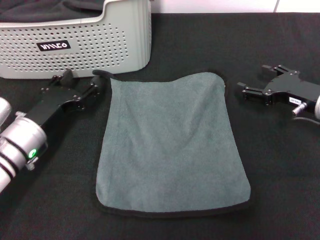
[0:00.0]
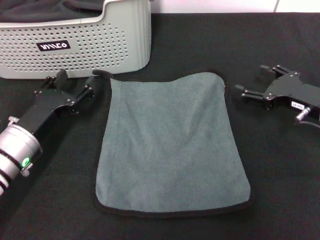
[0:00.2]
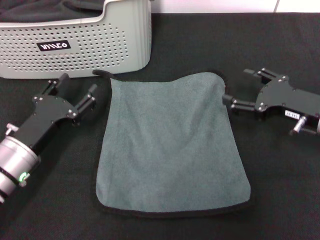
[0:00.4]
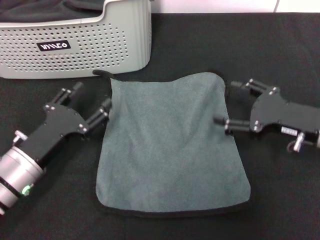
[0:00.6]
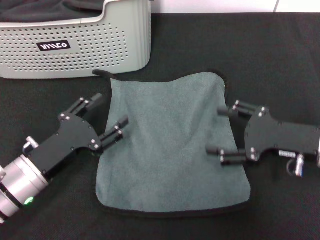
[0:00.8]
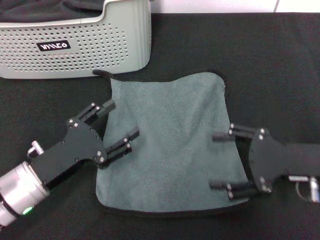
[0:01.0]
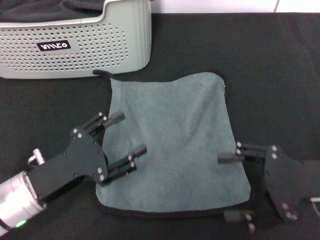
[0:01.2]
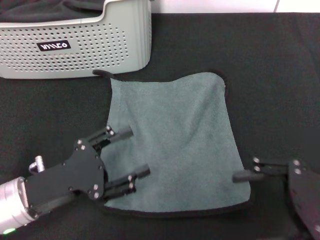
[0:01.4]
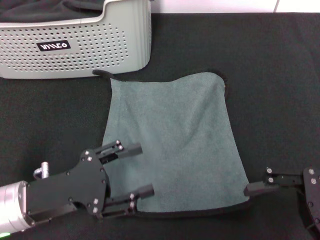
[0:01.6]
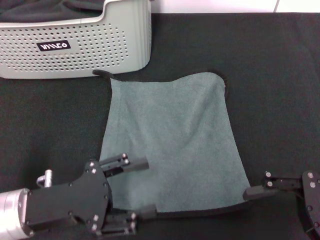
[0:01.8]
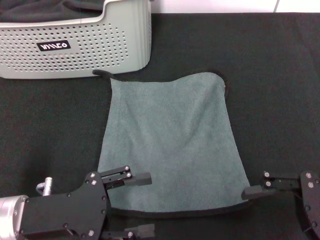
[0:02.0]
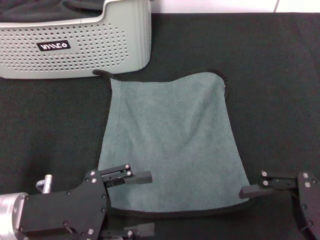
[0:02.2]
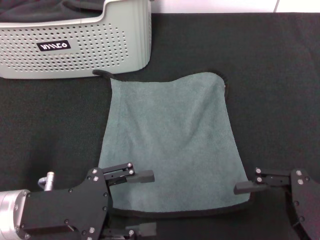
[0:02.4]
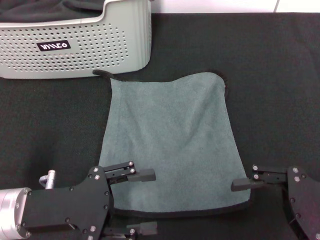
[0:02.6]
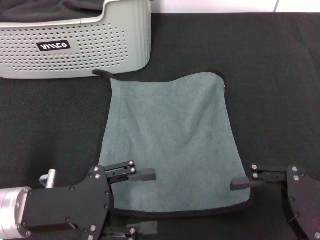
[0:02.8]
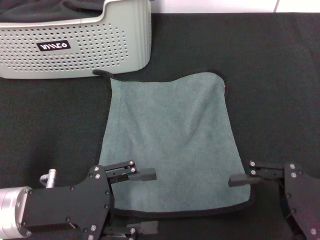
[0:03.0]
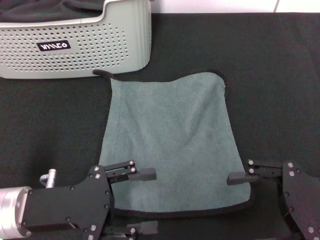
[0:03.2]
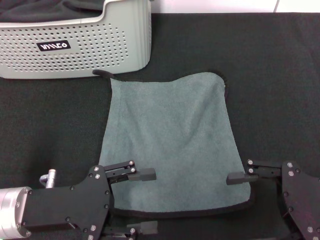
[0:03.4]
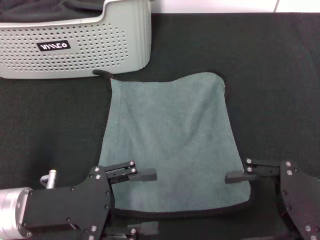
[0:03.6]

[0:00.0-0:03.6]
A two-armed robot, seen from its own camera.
Task of the whole recording: pick up the towel from the storage box and lay it flat on the black tablecloth.
0:00.0 to 0:01.8: The right gripper is displaced backward and upward by about 15 cm; the left gripper moves backward, roughly 10 cm.
0:01.8 to 0:03.6: The grippers make only small movements.

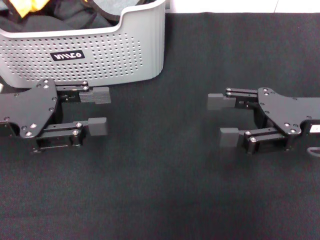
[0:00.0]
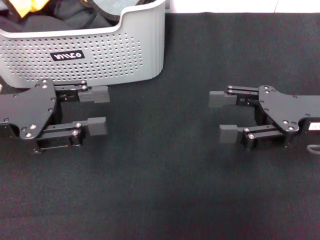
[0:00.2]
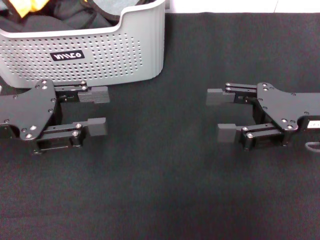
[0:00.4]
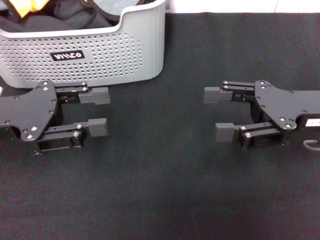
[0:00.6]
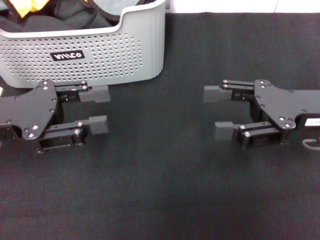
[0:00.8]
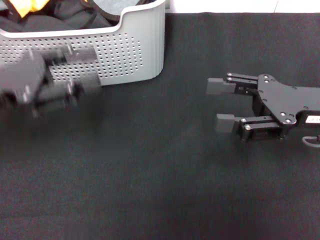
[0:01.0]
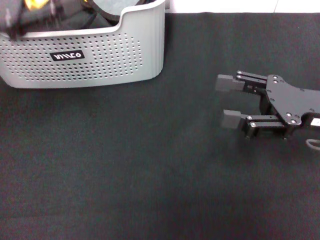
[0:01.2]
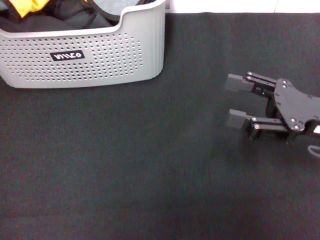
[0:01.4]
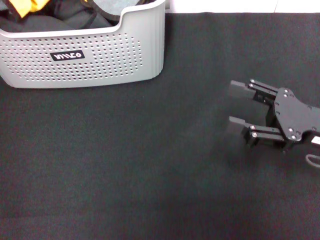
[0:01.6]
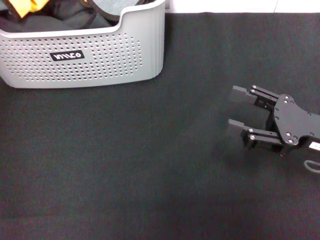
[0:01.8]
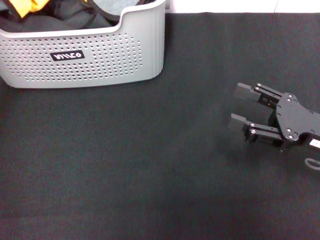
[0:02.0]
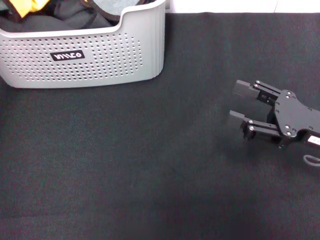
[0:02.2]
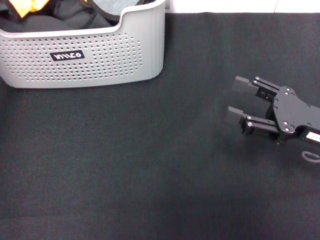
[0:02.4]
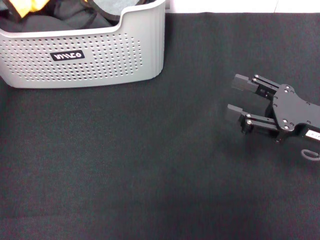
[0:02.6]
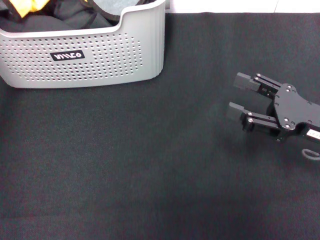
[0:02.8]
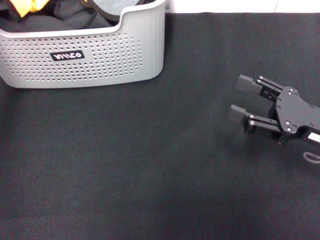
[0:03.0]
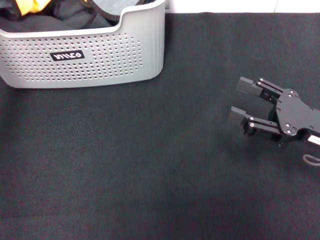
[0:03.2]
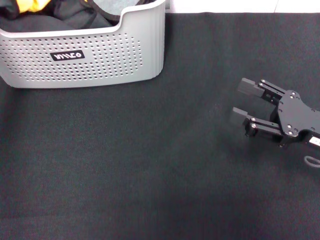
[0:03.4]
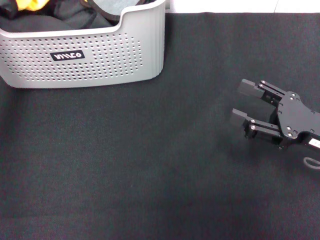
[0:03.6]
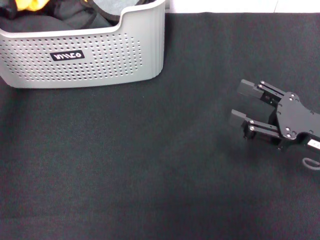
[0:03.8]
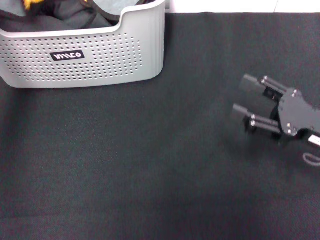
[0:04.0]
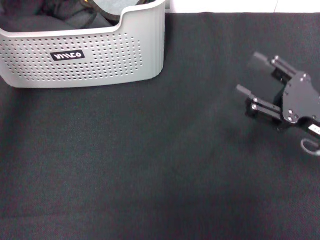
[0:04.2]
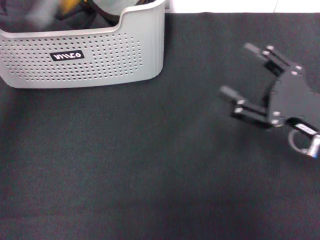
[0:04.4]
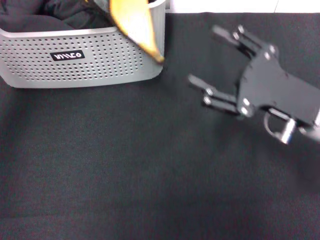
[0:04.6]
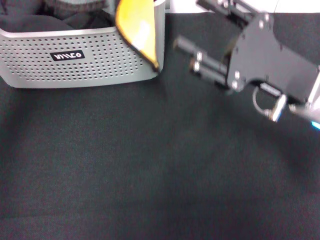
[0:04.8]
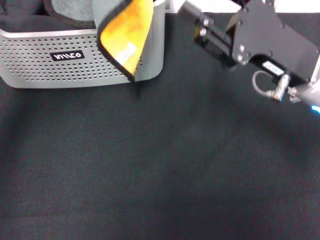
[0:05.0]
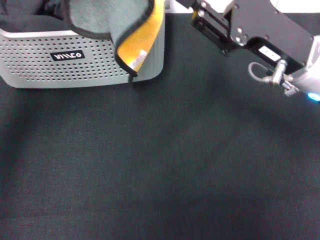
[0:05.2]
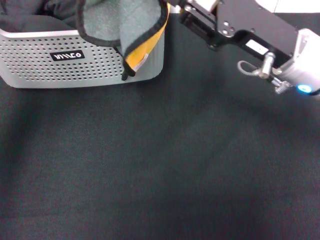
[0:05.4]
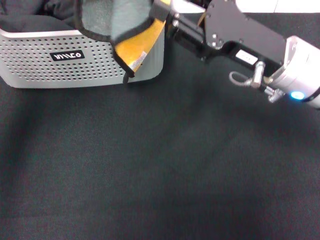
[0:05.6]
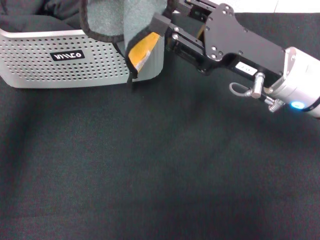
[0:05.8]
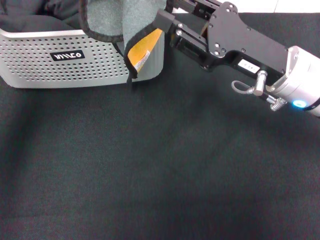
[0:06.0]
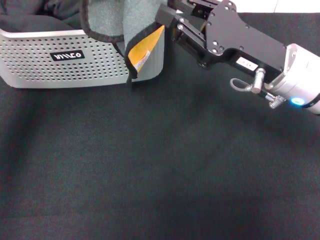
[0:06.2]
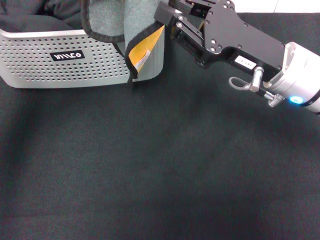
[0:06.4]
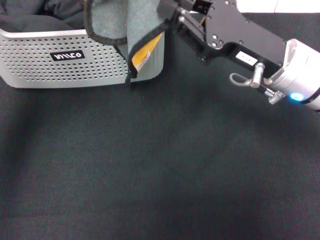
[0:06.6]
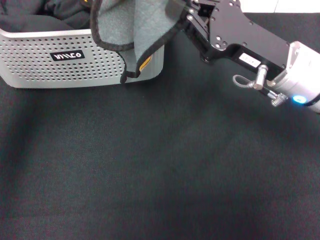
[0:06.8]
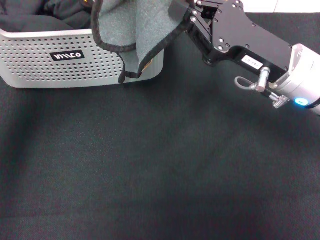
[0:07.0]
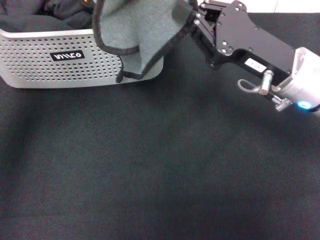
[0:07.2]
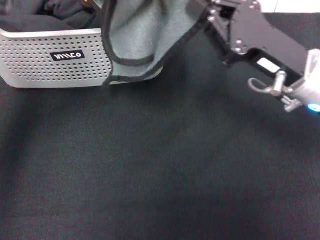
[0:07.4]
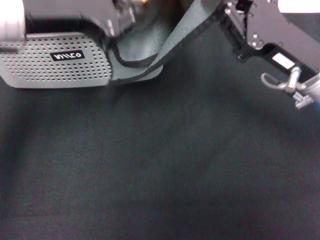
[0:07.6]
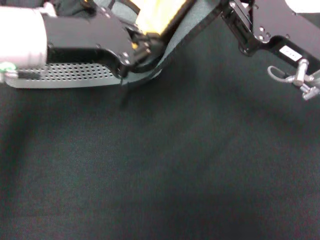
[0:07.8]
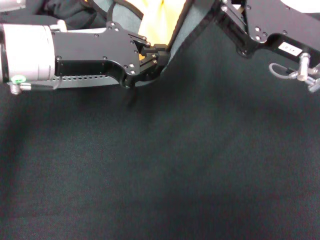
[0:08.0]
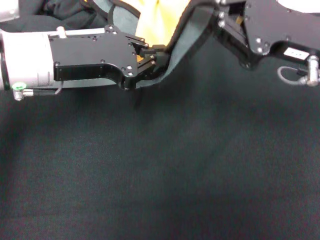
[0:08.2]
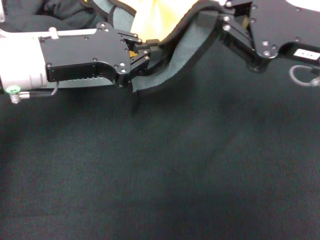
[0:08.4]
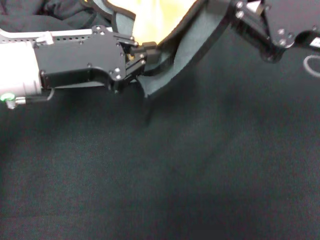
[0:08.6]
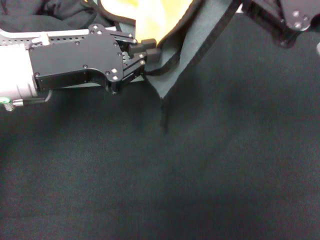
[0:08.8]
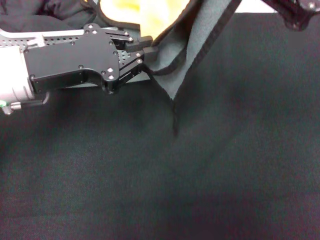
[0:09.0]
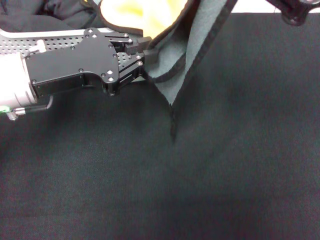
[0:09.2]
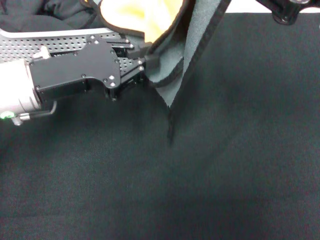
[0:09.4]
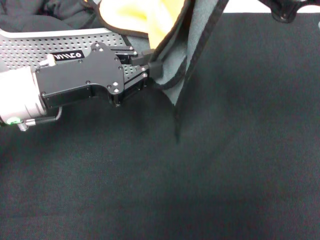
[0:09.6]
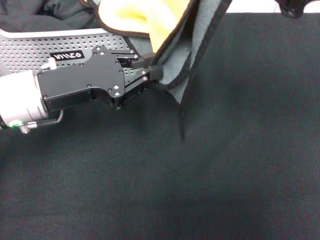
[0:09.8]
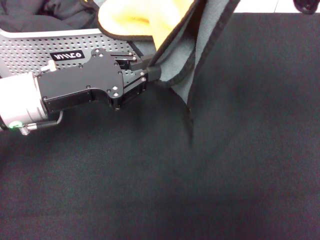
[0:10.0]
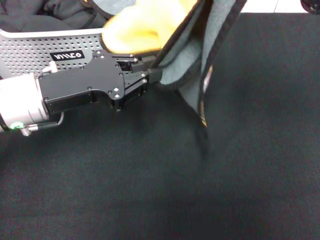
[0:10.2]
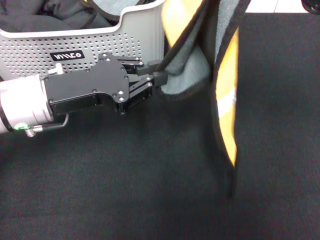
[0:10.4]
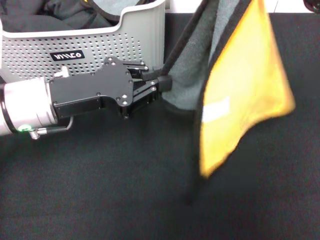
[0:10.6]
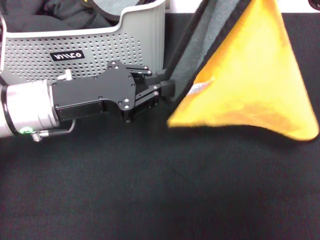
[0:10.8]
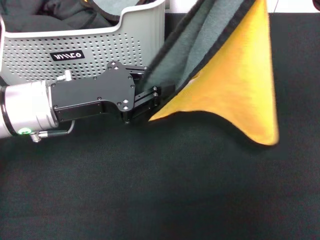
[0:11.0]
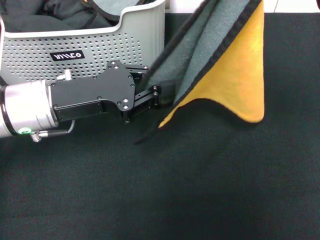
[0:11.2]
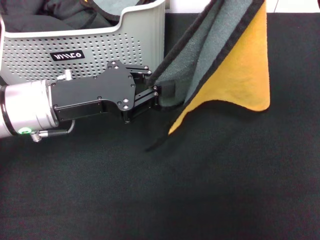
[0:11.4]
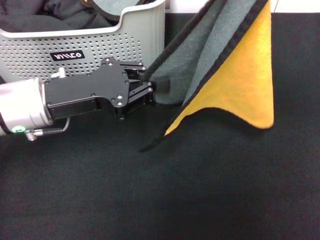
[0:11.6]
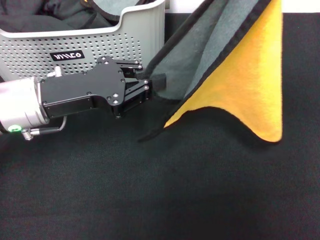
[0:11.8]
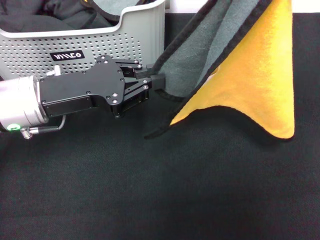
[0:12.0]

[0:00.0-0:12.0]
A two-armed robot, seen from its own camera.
Task of the whole recording: pick up the towel from the storage box and lay it flat on the black tablecloth.
Step, 0:00.0 to 0:03.6: Pick up a towel with the left gripper.
Step, 0:03.8 to 0:07.0: Spread the towel flat with the left gripper.
0:00.0 to 0:01.6: The left gripper is displaced upward and forward by roughly 20 cm.
0:03.0 to 0:04.4: The left gripper is displaced upward and to the right by approximately 10 cm, and closes up.
0:04.4 to 0:06.0: The right gripper is displaced to the left and upward by roughly 10 cm, and closes. Meanwhile the left gripper moves about 5 cm.
0:06.0 to 0:07.6: The left gripper shifts roughly 5 cm downward. The right gripper closes its fingers.
0:07.6 to 0:09.0: The right gripper shifts roughly 10 cm upward. Meanwhile the left gripper moves downward, about 10 cm.

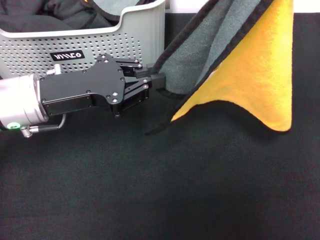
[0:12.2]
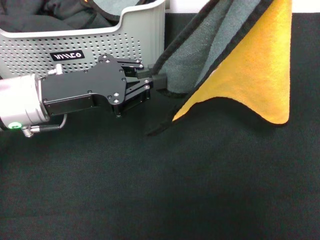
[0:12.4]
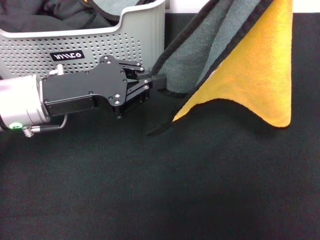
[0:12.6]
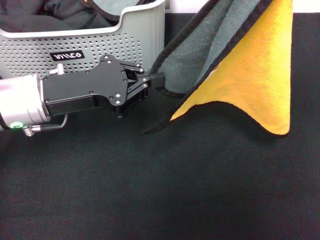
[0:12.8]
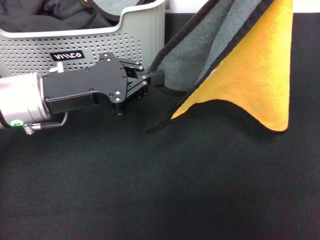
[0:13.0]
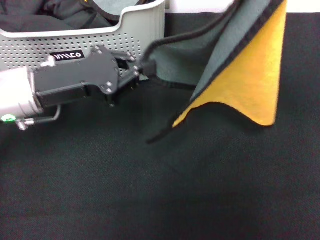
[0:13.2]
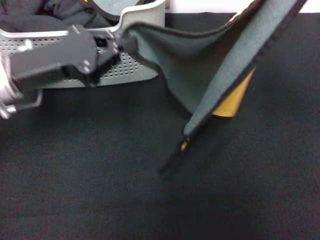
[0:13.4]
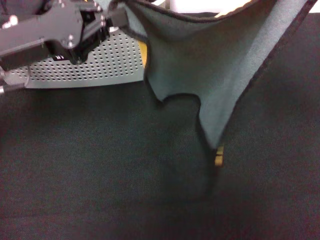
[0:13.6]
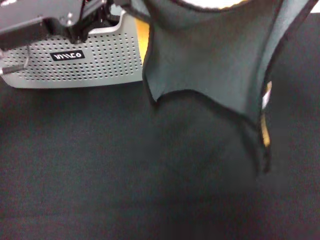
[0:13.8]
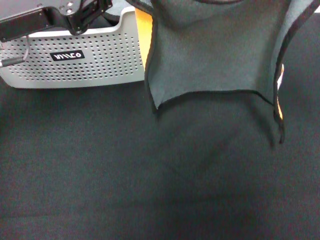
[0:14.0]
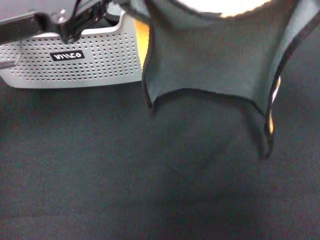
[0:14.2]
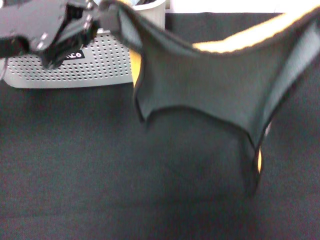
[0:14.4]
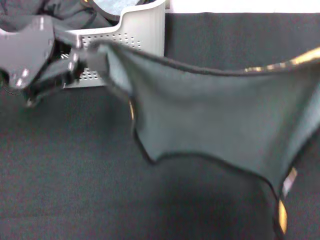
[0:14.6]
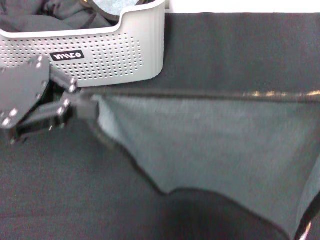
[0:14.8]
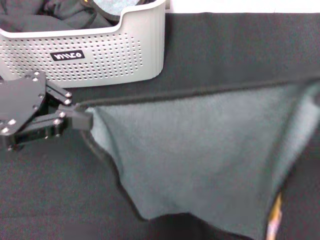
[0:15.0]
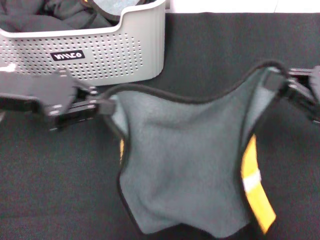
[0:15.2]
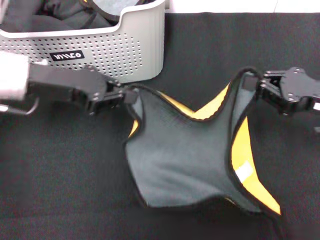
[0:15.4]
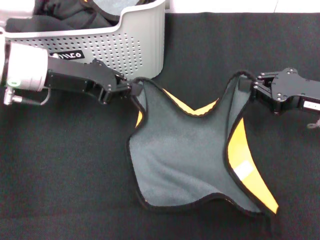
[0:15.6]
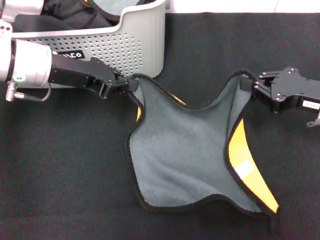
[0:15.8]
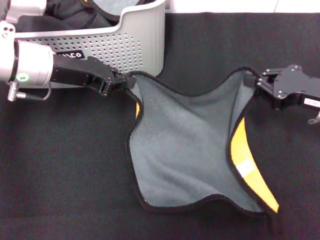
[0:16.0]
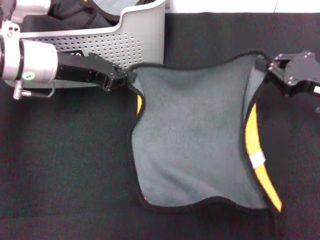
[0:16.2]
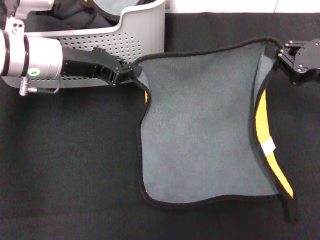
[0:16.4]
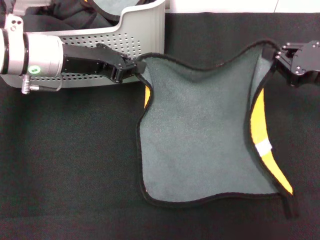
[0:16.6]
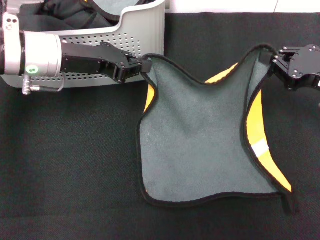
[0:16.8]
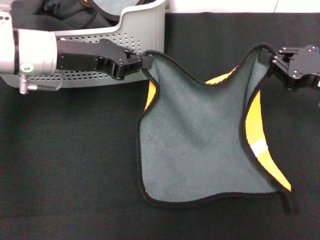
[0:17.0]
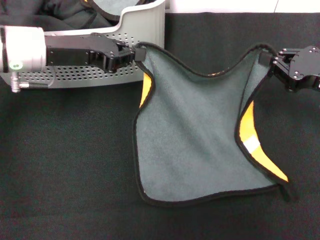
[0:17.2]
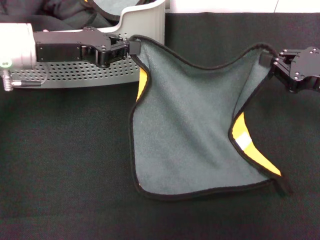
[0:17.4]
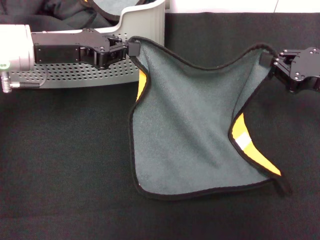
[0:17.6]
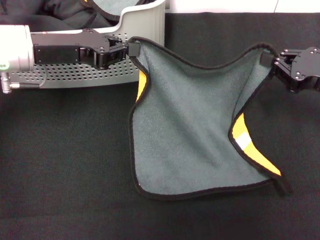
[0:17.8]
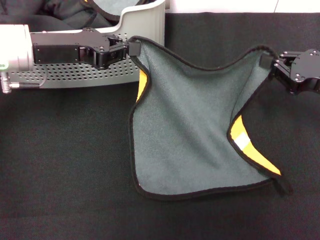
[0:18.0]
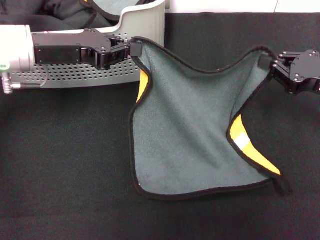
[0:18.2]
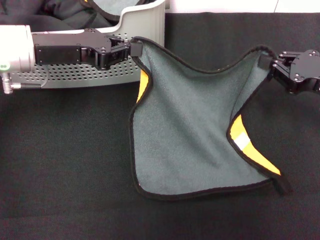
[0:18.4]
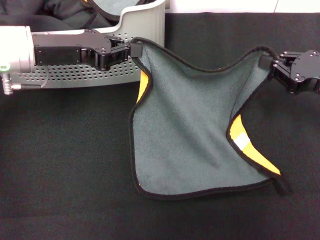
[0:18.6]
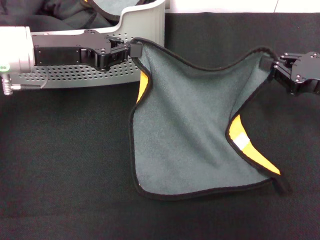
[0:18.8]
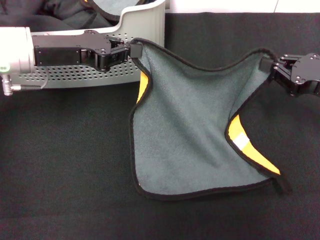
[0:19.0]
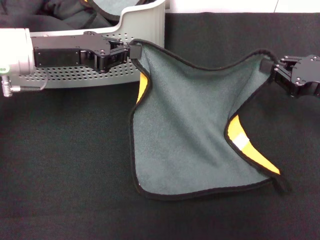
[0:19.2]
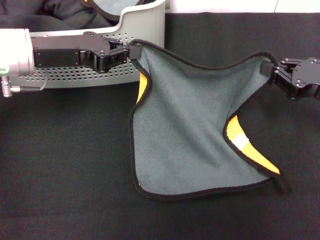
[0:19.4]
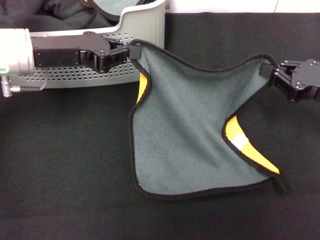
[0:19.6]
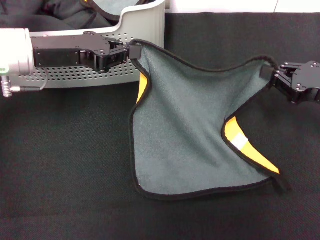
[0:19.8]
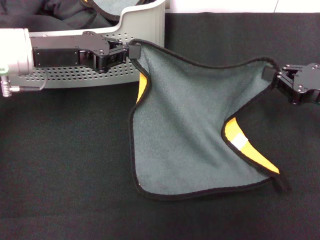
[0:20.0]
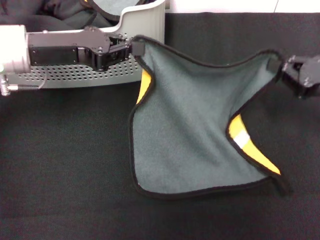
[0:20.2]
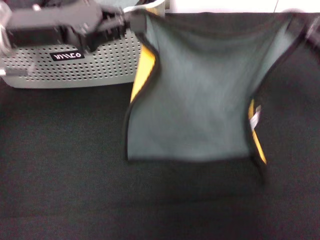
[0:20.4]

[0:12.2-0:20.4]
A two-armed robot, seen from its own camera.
Task of the whole recording: pick up the towel from the storage box and lay it flat on the black tablecloth.
0:12.2 to 0:13.8: The right gripper is displaced downward by some 5 cm. The left gripper shifts approximately 5 cm upward.
0:13.8 to 0:15.4: The right gripper shifts some 10 cm downward.
0:17.2 to 0:18.8: The grippers make only small movements.
0:18.8 to 0:20.4: The right gripper shifts by approximately 5 cm.
